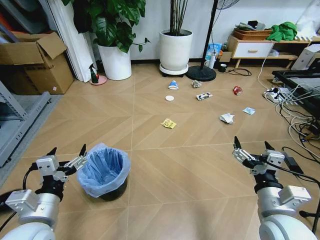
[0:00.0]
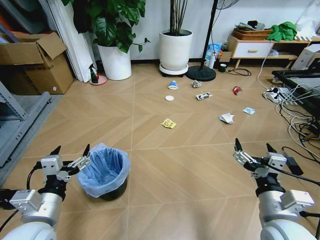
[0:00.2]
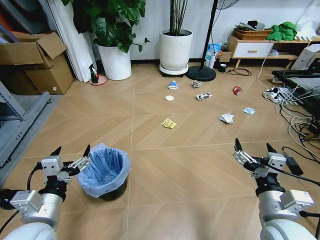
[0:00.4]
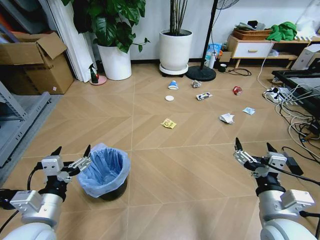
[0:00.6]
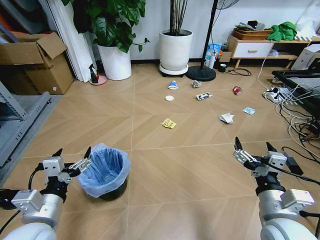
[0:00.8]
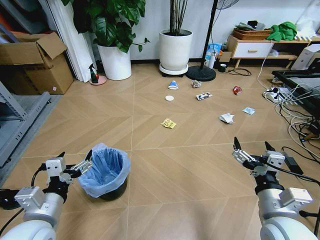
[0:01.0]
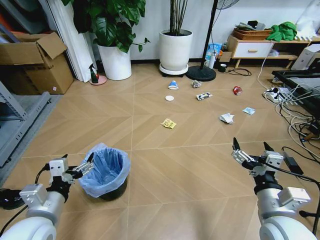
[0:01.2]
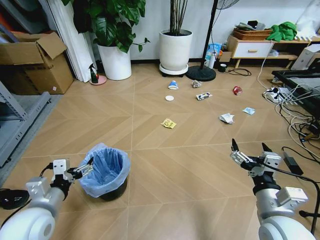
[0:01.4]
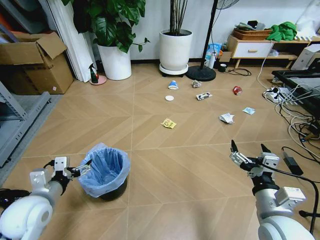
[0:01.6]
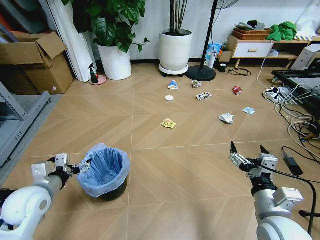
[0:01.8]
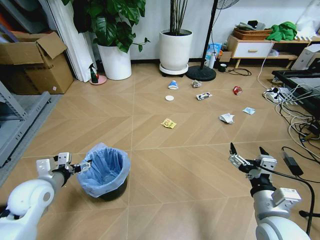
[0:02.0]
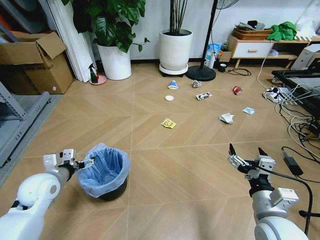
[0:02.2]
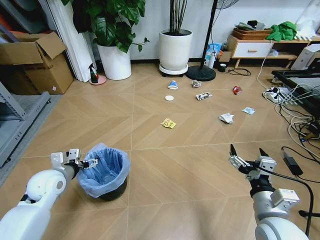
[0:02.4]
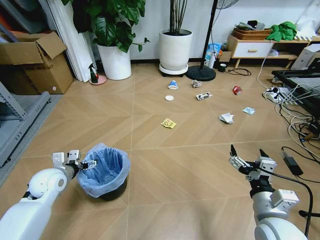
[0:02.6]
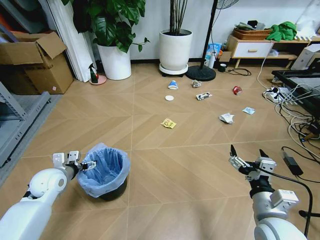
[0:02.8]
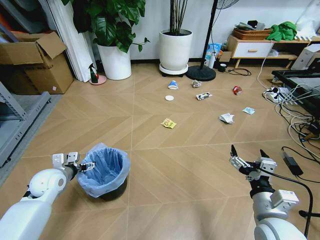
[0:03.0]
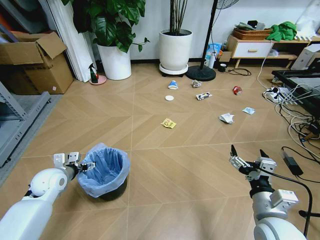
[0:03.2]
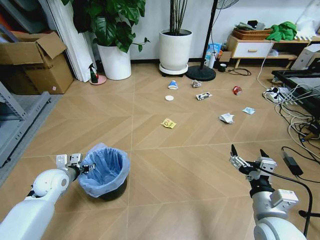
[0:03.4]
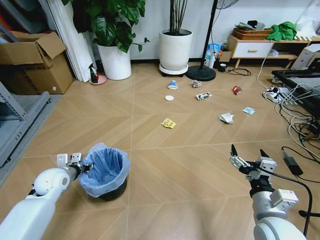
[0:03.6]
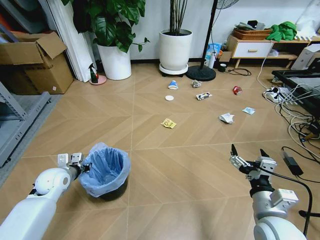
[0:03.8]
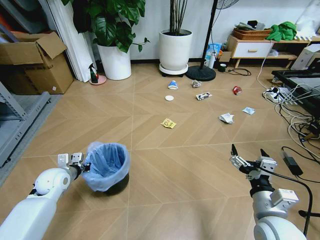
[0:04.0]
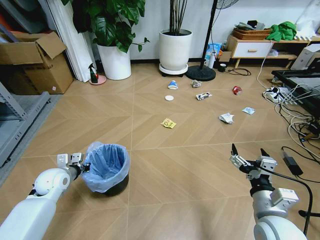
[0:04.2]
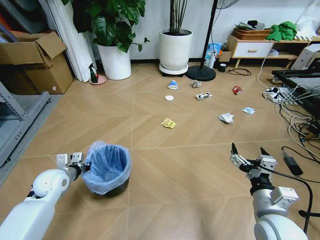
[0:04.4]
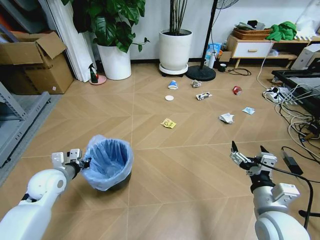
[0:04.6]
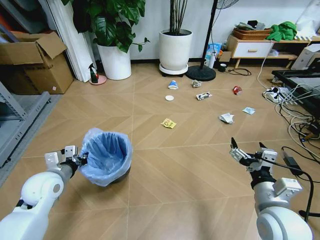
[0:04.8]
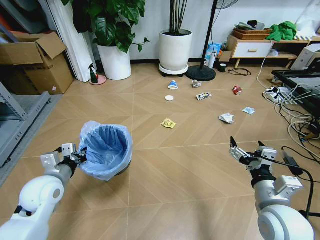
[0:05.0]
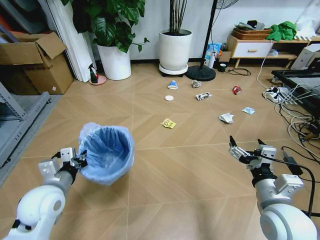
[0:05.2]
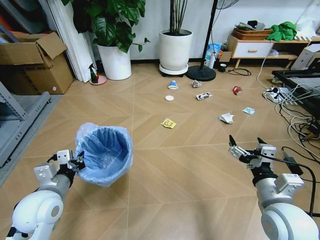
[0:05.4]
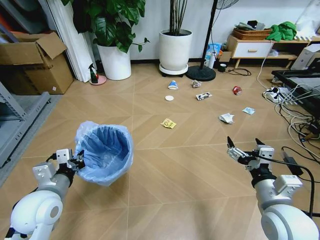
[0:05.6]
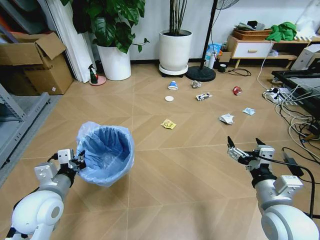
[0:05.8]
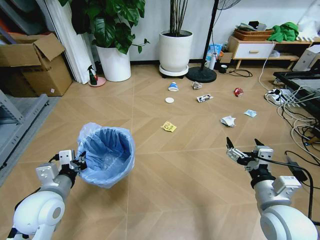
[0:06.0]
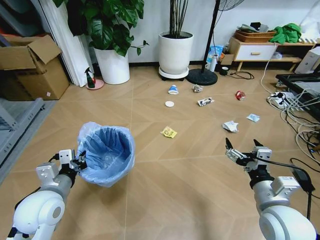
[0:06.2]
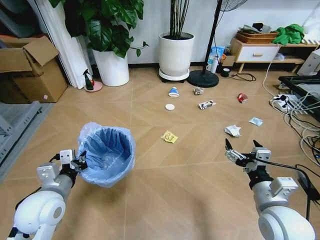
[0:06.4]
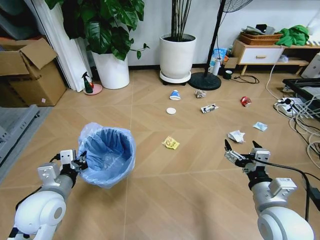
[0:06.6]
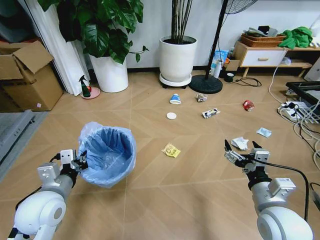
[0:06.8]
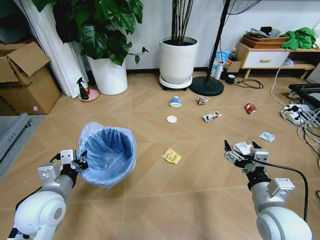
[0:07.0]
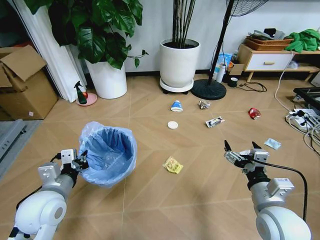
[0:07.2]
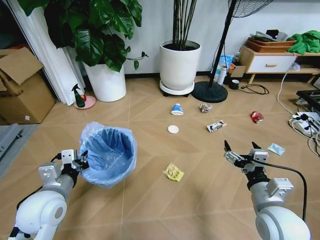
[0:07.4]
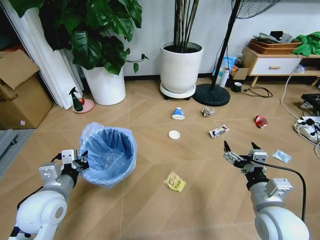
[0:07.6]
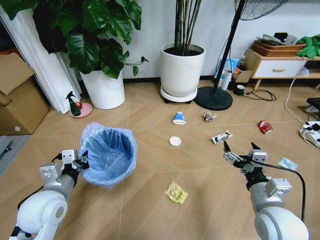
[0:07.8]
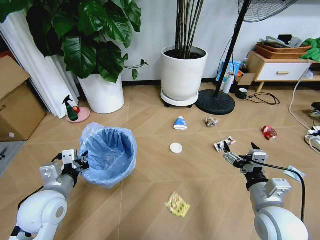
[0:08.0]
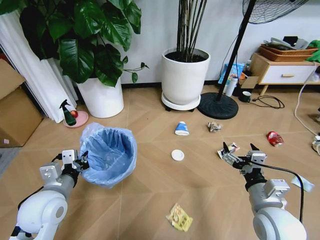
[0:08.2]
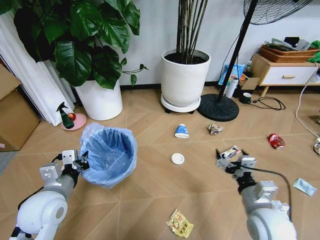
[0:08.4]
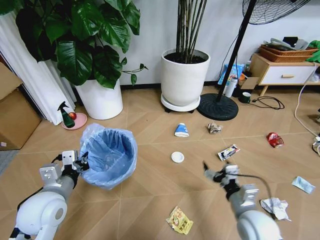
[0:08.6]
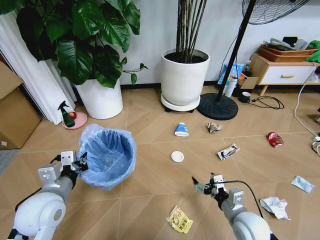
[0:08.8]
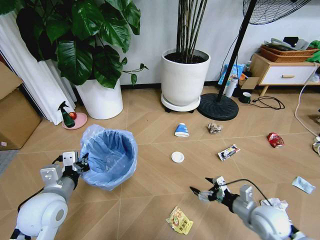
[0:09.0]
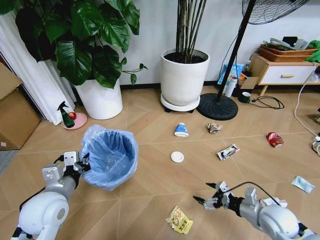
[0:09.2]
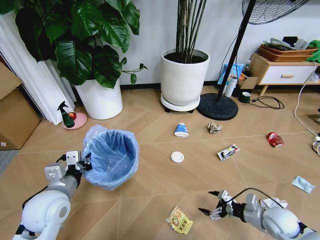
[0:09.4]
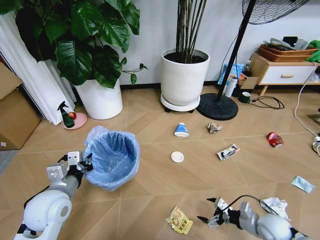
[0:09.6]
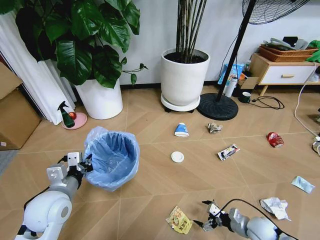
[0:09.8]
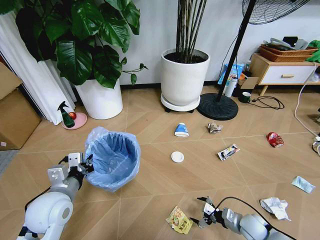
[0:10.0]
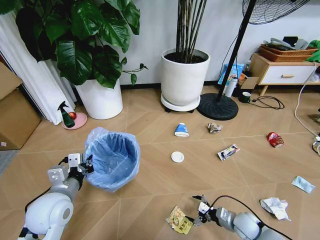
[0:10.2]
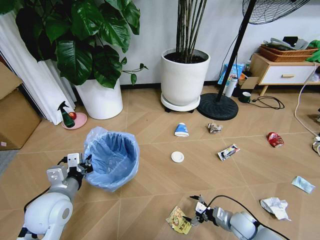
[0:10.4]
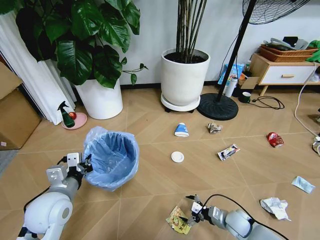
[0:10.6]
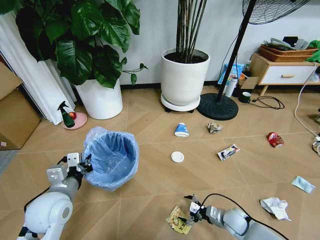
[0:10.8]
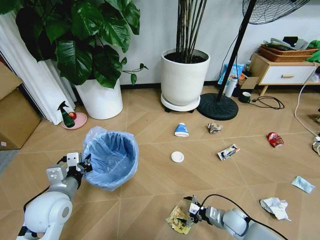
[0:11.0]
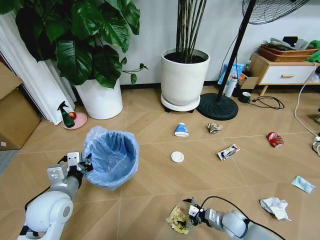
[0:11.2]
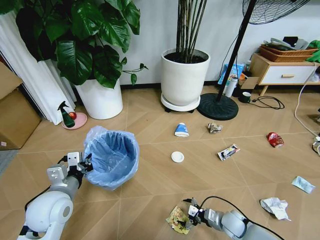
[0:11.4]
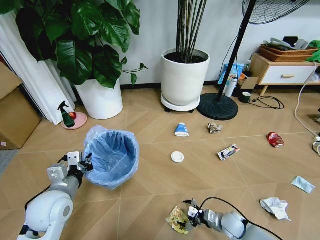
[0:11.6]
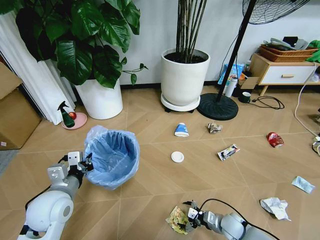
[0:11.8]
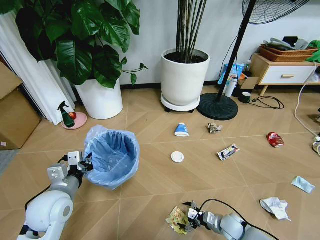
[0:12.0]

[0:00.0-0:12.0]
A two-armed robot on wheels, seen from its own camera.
Task of the whole recording: Pick up the trash bin and place the garbage on the floor into it.
0:01.6 to 0:03.0: The left gripper shifts approximately 15 cm forward and downward.
0:03.0 to 0:04.4: The left gripper closes up.
0:04.4 to 0:06.0: The left gripper shifts roughly 15 cm backward, upward and to the right.
0:07.6 to 0:09.0: The right gripper shifts some 10 cm downward.
0:09.0 to 0:10.4: The right gripper shifts approximately 15 cm downward.
0:10.4 to 0:12.0: There are only small adjustments of the grippers.

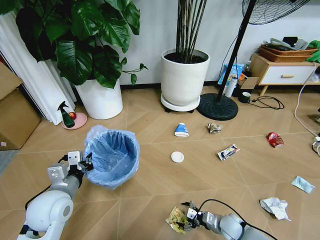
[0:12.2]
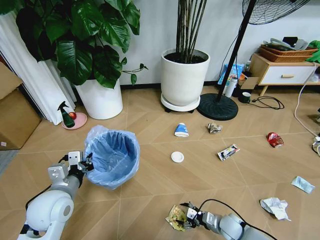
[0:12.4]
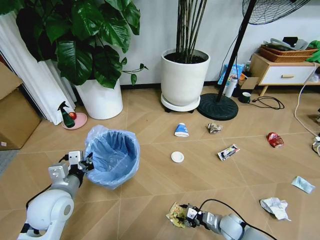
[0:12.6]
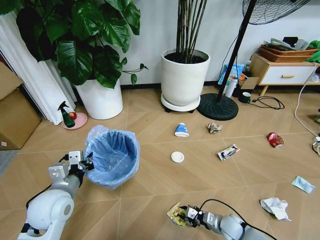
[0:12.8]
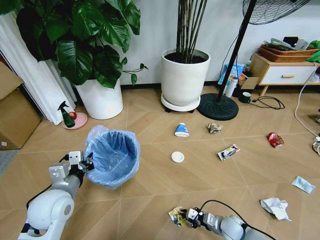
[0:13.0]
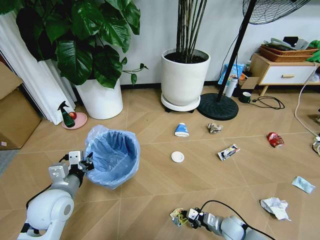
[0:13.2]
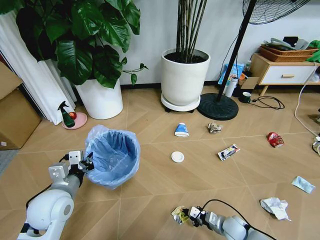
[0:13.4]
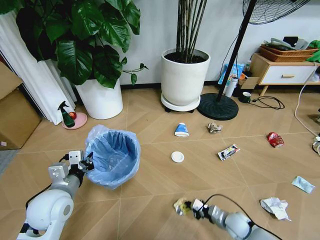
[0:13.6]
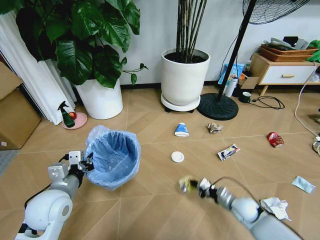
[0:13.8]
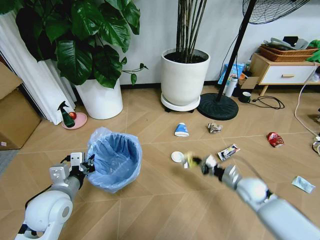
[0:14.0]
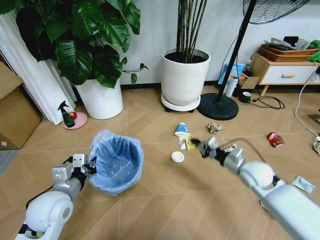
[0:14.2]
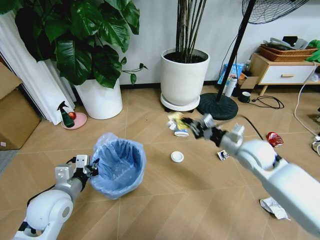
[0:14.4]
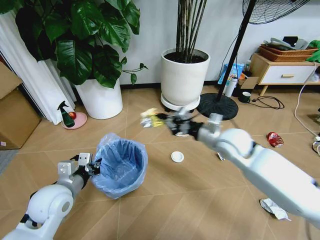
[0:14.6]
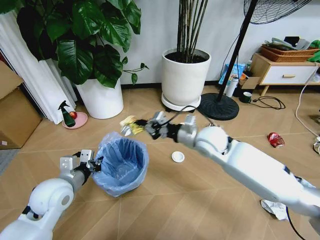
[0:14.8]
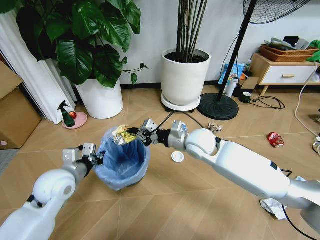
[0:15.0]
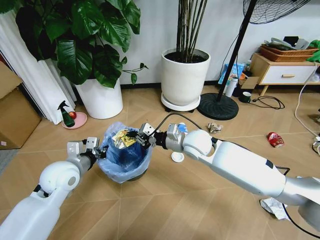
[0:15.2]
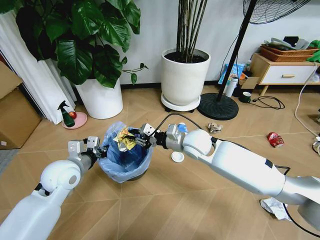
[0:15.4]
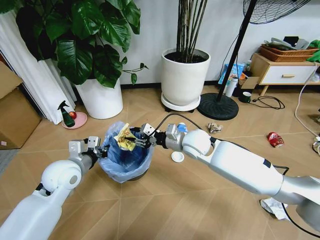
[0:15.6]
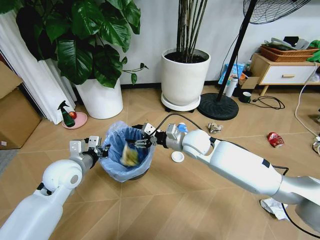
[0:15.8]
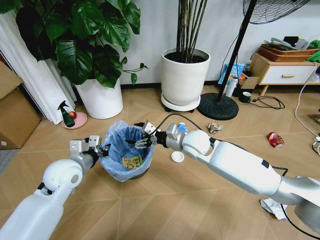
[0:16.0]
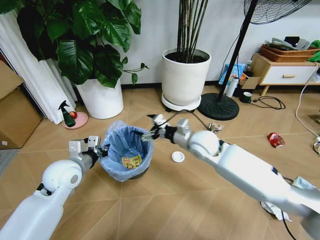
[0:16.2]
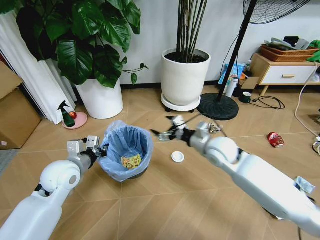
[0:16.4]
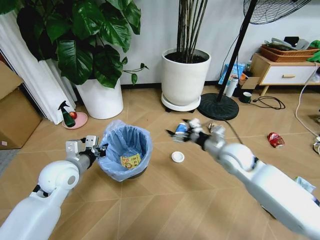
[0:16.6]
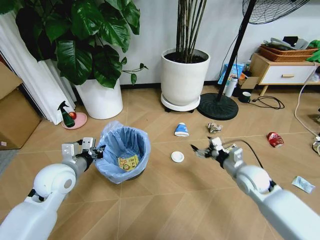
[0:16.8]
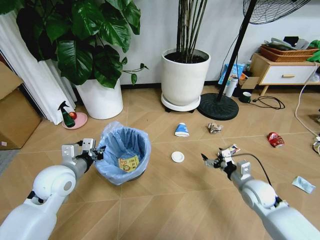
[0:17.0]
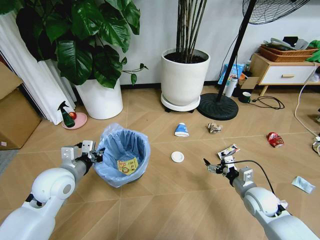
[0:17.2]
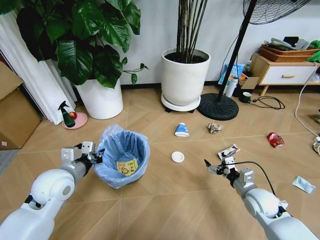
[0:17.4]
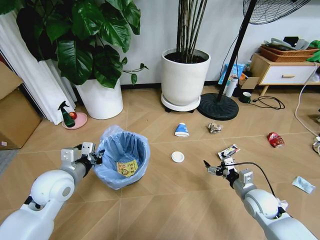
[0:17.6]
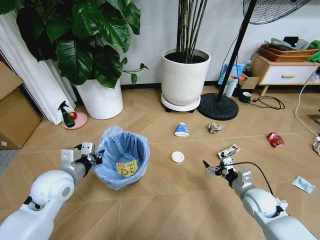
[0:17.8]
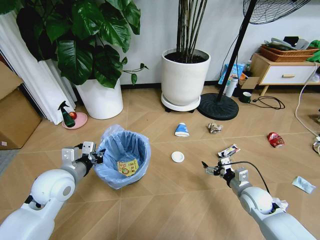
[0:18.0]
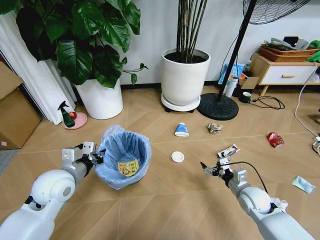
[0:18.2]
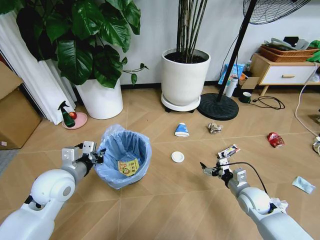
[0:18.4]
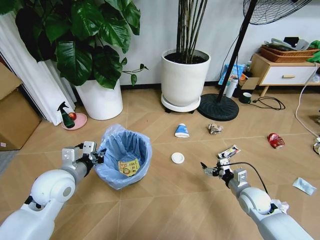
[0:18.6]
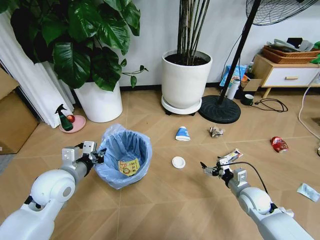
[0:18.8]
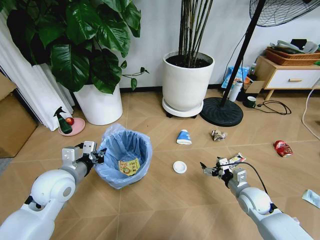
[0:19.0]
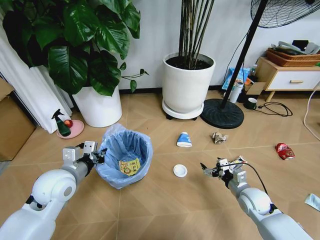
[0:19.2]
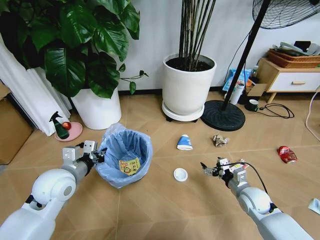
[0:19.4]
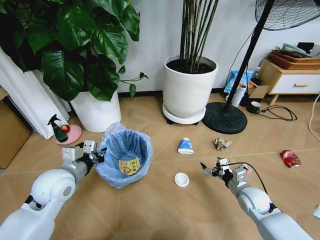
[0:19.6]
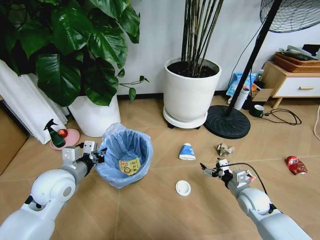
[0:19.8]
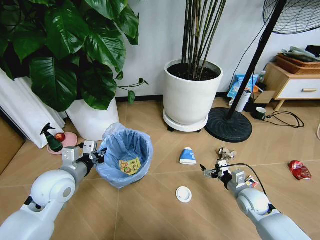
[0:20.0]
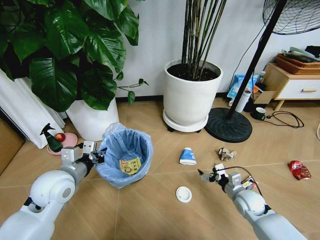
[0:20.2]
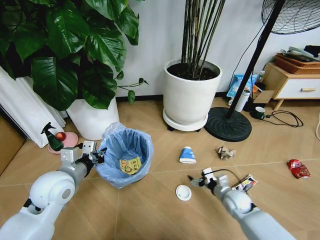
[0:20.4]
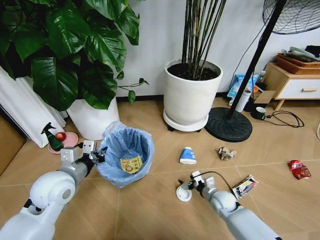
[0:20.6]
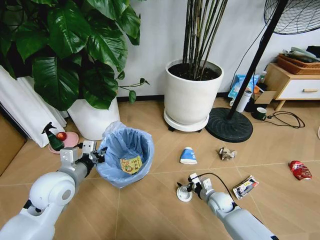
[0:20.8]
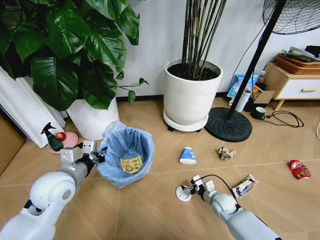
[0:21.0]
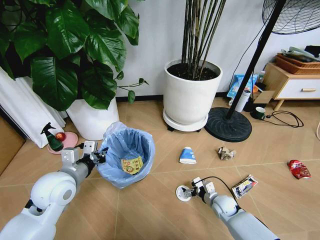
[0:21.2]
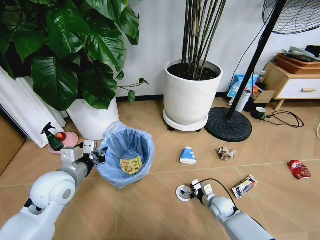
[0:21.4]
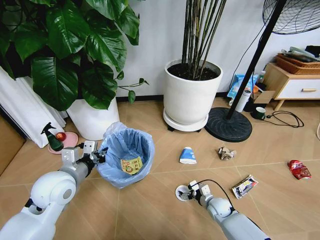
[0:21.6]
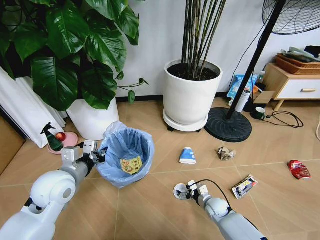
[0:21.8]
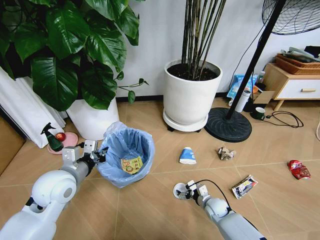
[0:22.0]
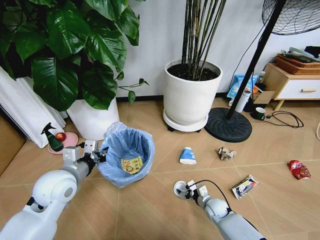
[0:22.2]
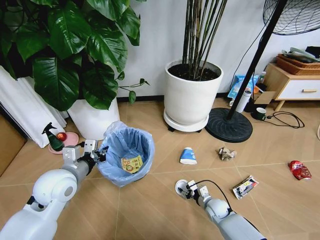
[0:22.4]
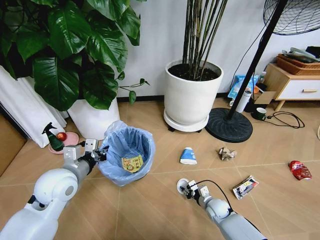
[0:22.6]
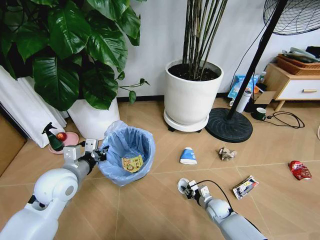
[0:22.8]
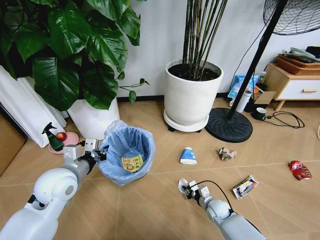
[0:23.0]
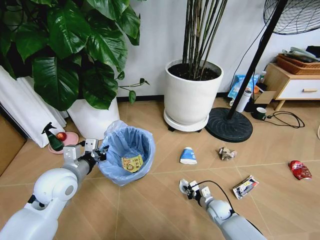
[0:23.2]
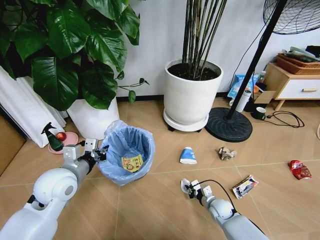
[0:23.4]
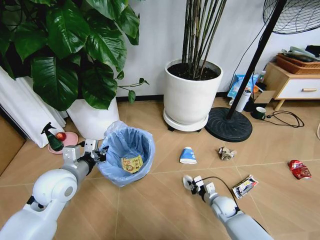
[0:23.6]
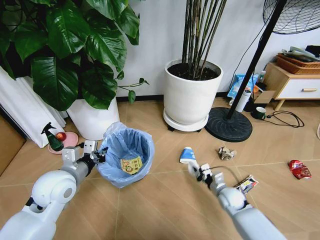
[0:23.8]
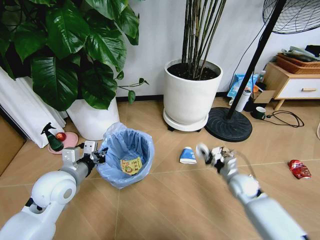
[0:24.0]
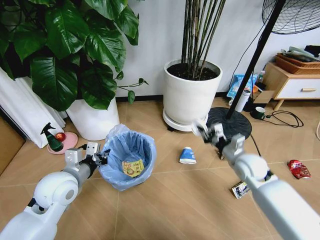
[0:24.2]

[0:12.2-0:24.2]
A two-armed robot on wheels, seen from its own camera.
Task of the whole recording: Pick up the trash bin and place the garbage on the floor into it.
0:12.2 to 0:13.8: The right gripper travels upward by approximately 5 cm, and closes up.
0:13.8 to 0:15.2: The left gripper heads forward, covering some 10 cm. The right gripper is displaced upward, to the left and forward by some 35 cm.
0:15.2 to 0:16.6: The right gripper travels to the right by about 15 cm, and opens its fingers.
0:16.6 to 0:18.2: The right gripper goes roughly 20 cm downward, to the right and backward.
0:19.8 to 0:21.2: The right gripper moves downward and to the left, approximately 15 cm.
0:21.2 to 0:22.6: The right gripper closes.
0:22.6 to 0:24.2: The right gripper goes approximately 25 cm upward.
